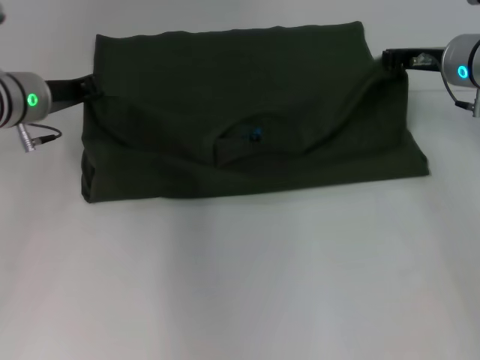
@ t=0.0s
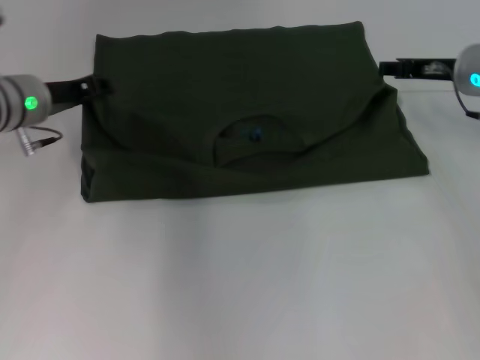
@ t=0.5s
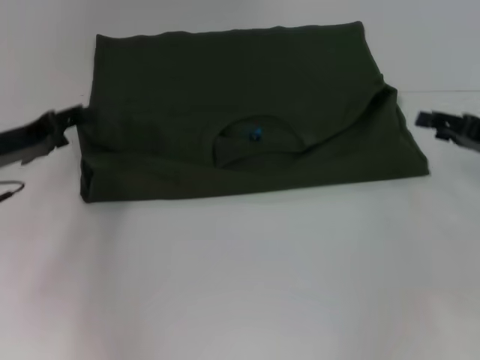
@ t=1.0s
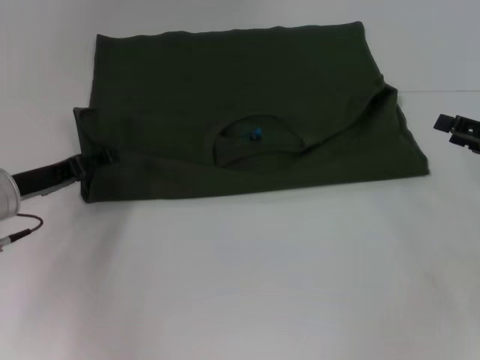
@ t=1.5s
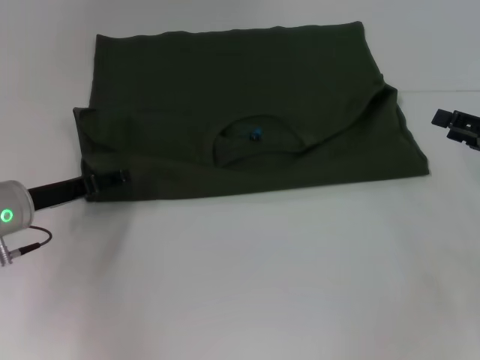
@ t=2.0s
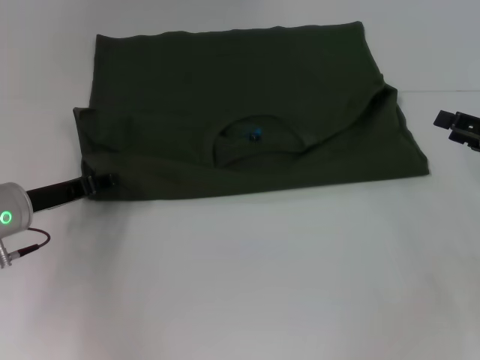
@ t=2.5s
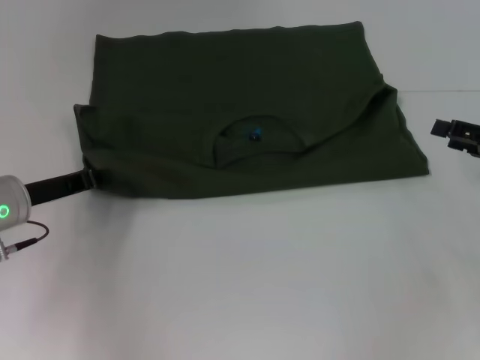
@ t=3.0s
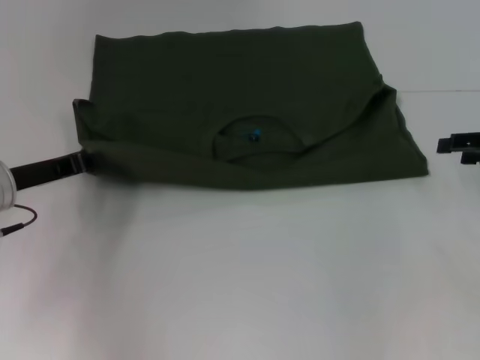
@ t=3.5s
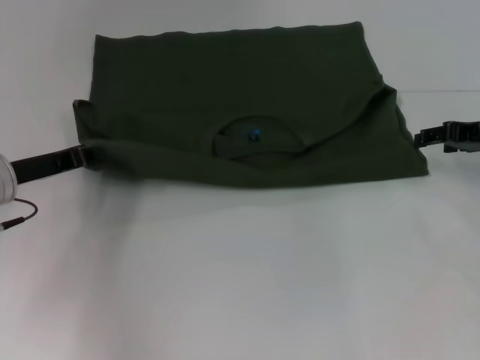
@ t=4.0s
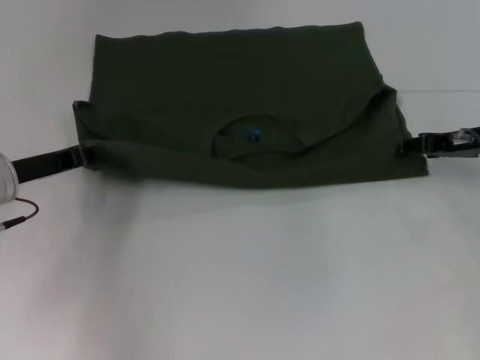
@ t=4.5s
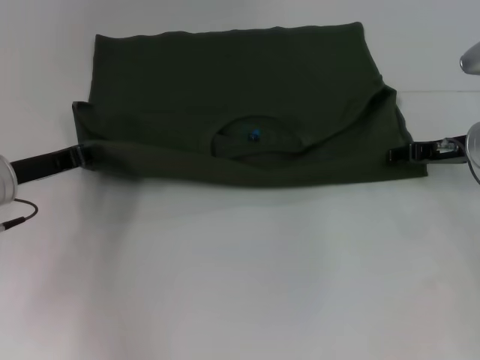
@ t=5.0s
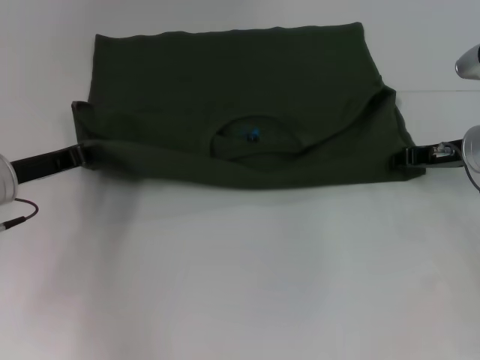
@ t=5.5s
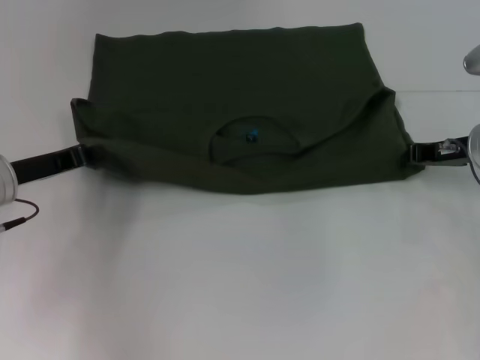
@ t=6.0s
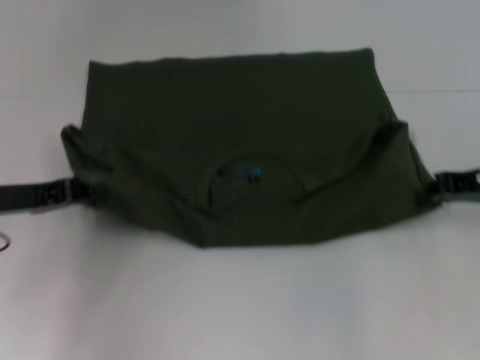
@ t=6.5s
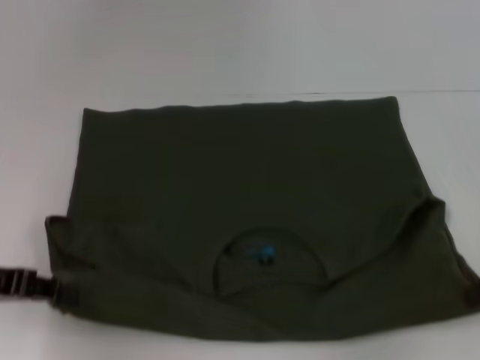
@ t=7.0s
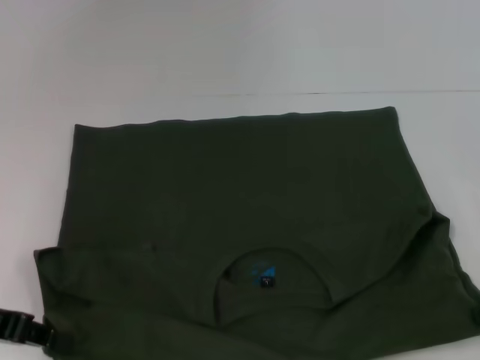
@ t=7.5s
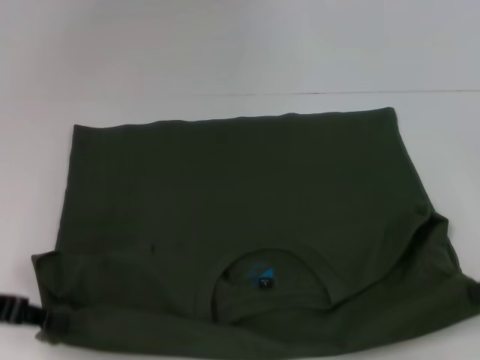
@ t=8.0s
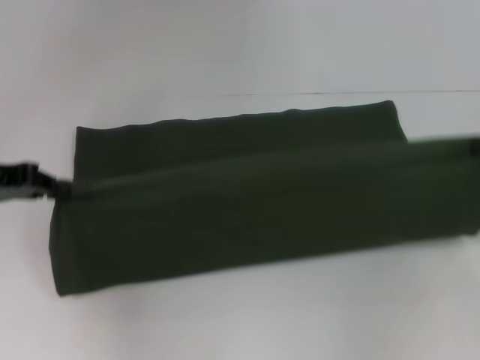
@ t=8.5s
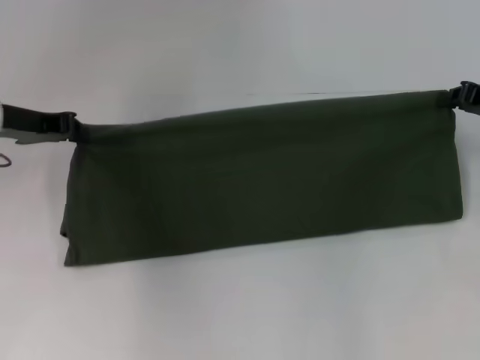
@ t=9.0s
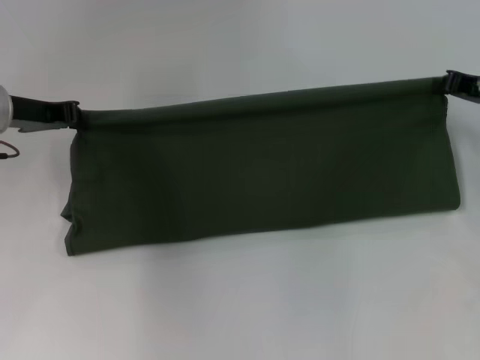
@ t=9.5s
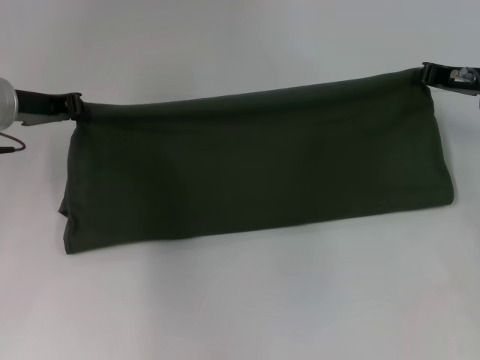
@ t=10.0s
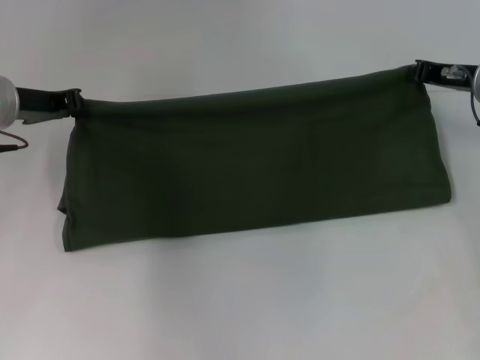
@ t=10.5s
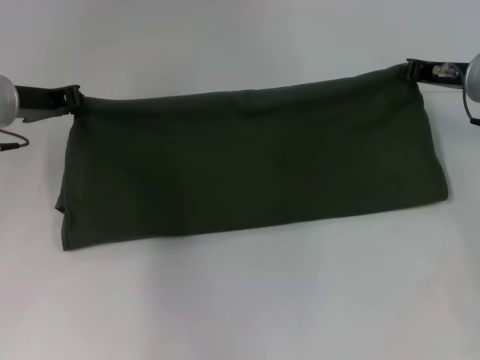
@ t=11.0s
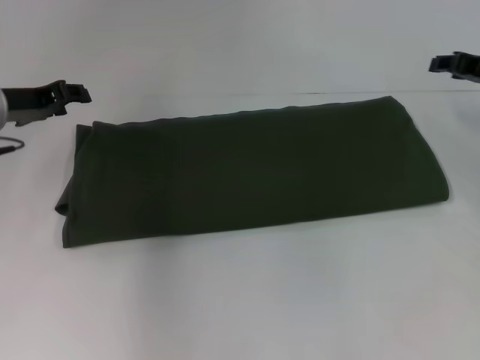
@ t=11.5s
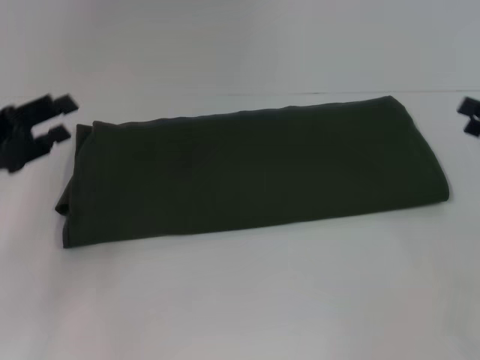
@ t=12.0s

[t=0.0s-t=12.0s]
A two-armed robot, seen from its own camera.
Step, t=1.0s to t=7.5s: Pull the clothes with your left hand.
Step, t=1.0s to t=7.5s: Pull the clothes with your right hand.
Step, t=8.0s to t=11.0s: Fold the clothes with your right hand.
t=0.0s to t=2.0s: The right gripper goes some 15 cm backward and to the right, and opens its fingers. Meanwhile the left gripper is displaced backward and downward by about 10 cm, and opens up.
t=2.0s to t=4.0s: The left gripper closes. Meanwhile the right gripper travels forward by approximately 10 cm.
t=4.0s to t=6.0s: The right gripper ends up some 5 cm from where it was, and closes up.
t=6.0s to t=8.0s: The right gripper is displaced backward and to the right by roughly 15 cm, while the left gripper heads backward, covering some 10 cm.
t=8.0s to t=10.0s: The left gripper heads forward, covering about 15 cm, while the right gripper moves forward and to the left, approximately 20 cm.
t=10.0s to t=12.0s: The left gripper shifts about 10 cm backward and to the left, and opens, while the right gripper heads backward and to the right, covering roughly 15 cm, and opens its fingers.

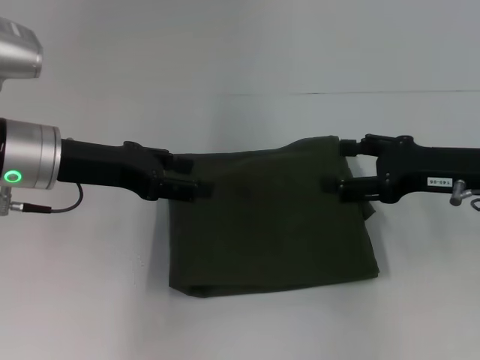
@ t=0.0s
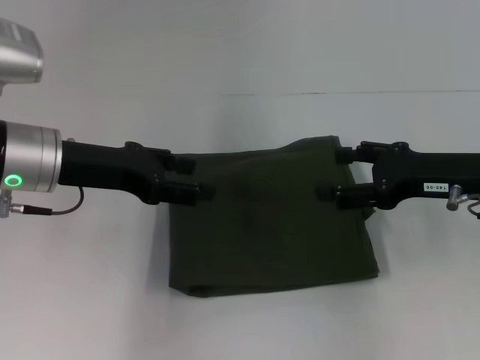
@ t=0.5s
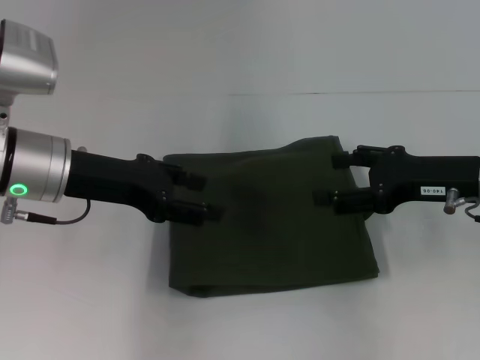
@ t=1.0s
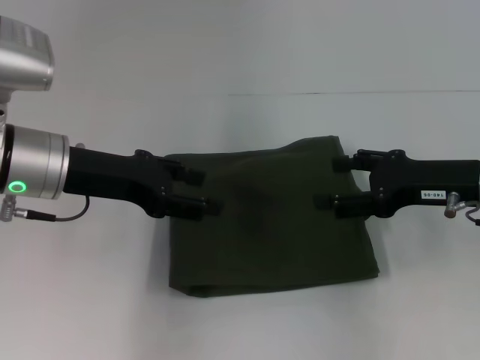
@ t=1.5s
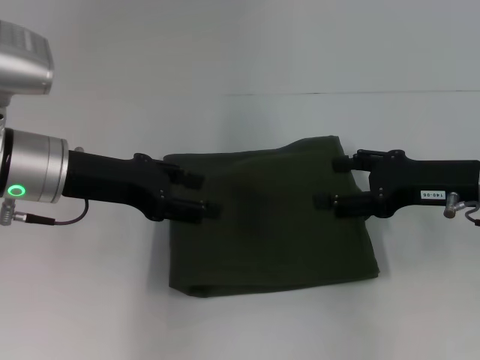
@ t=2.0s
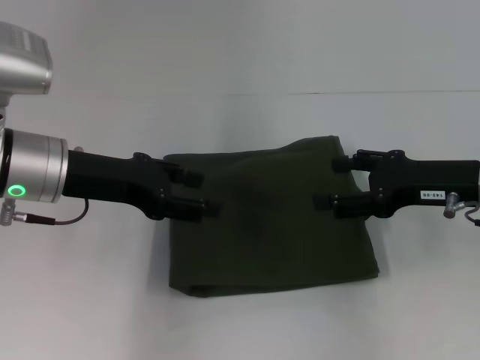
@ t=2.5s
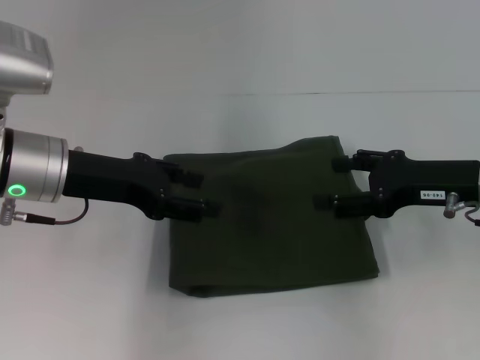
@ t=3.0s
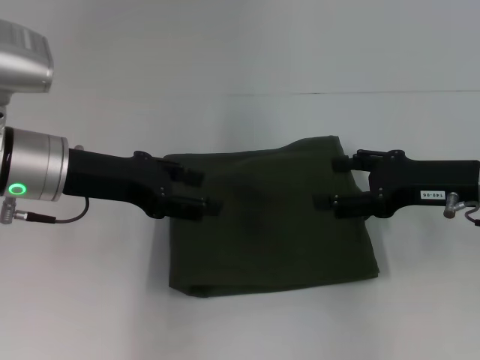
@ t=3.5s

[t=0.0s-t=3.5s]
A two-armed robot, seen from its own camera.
t=0.0s to t=2.0s: The grippers stay close to where they were, moving slightly.
t=2.0s to t=3.5s: Neither gripper changes place.
